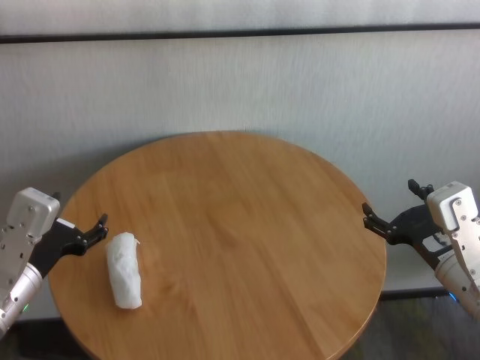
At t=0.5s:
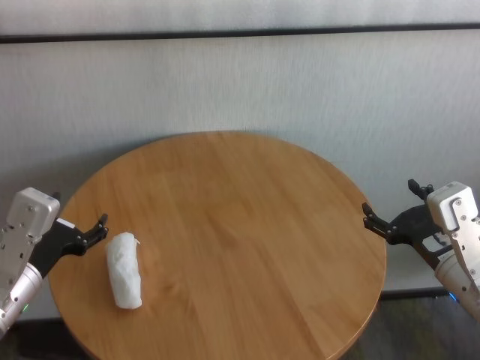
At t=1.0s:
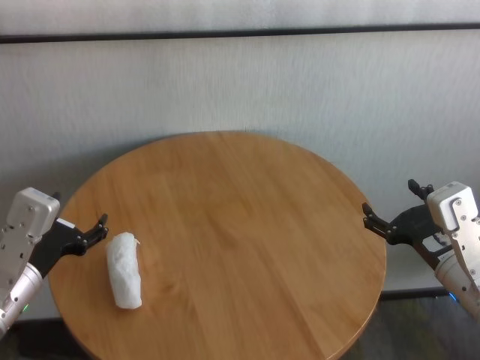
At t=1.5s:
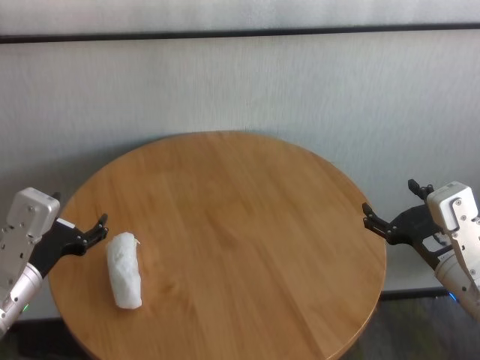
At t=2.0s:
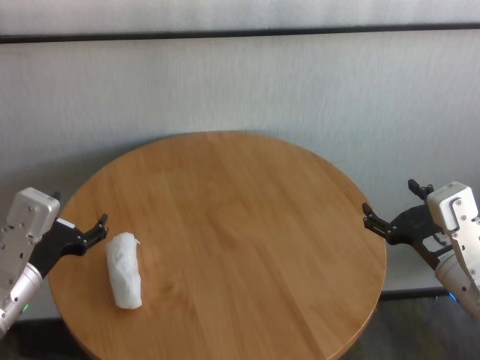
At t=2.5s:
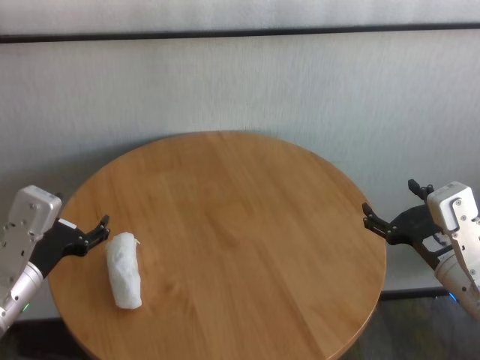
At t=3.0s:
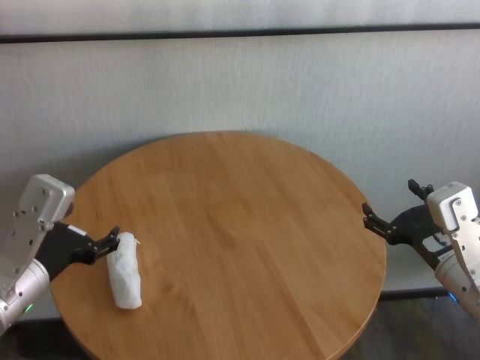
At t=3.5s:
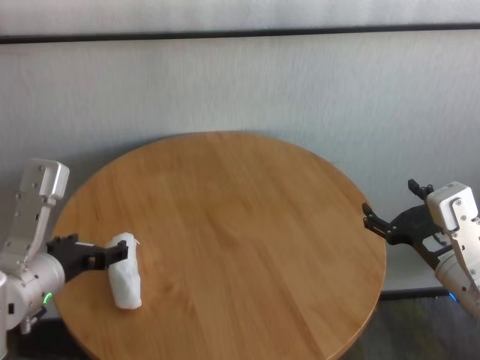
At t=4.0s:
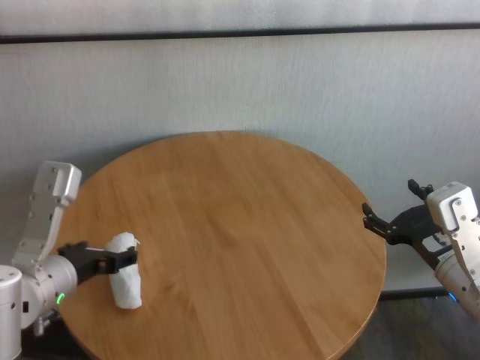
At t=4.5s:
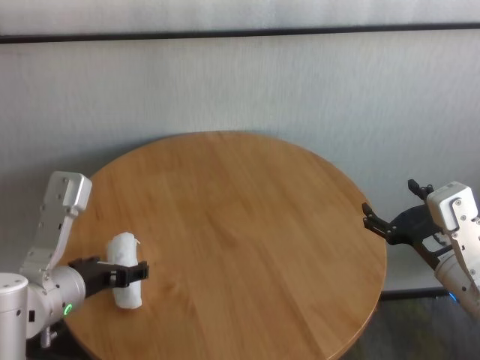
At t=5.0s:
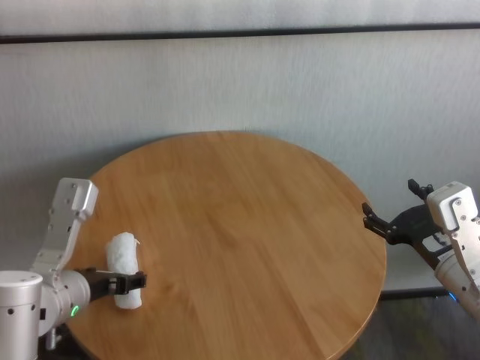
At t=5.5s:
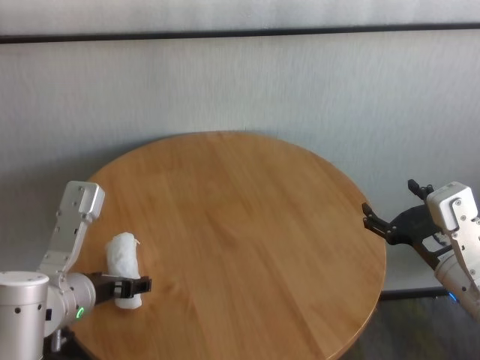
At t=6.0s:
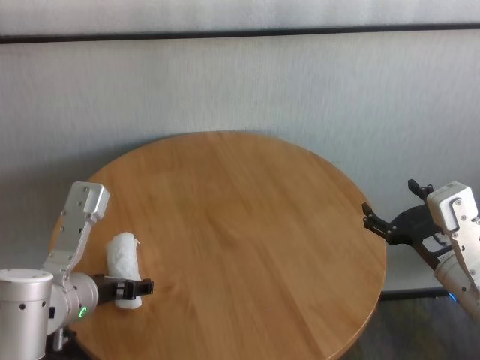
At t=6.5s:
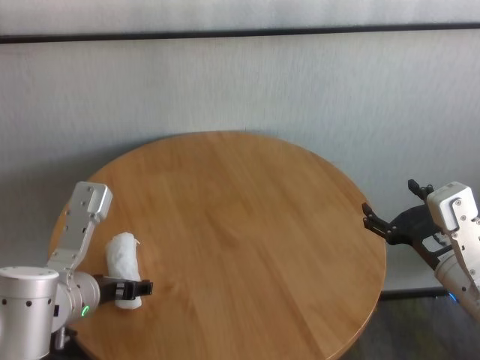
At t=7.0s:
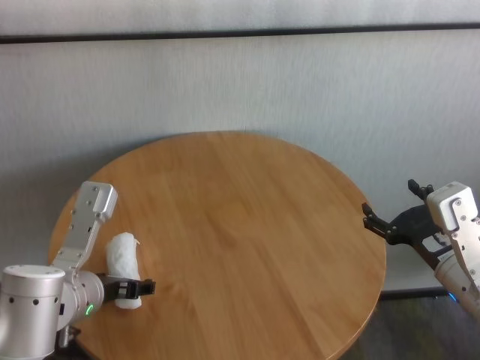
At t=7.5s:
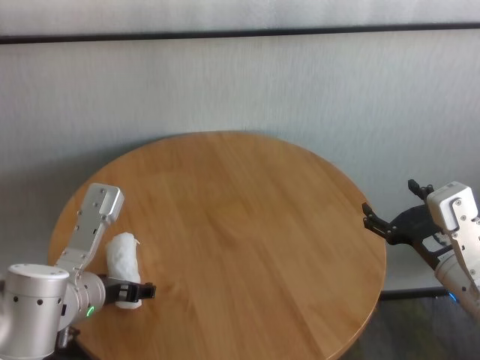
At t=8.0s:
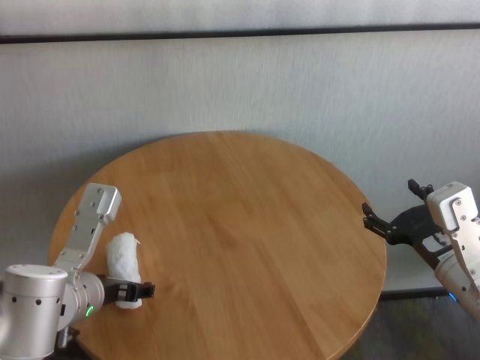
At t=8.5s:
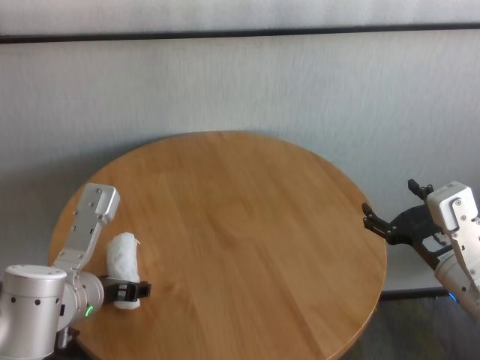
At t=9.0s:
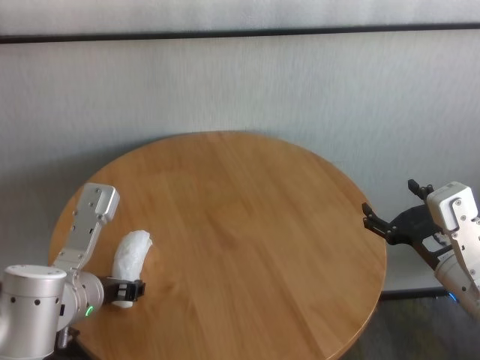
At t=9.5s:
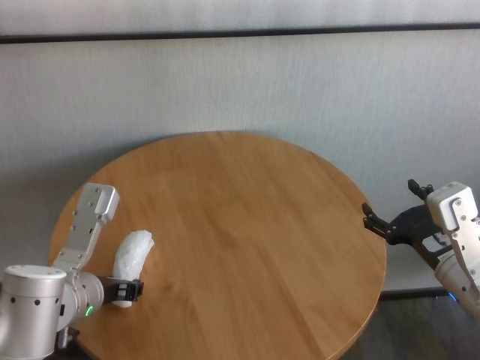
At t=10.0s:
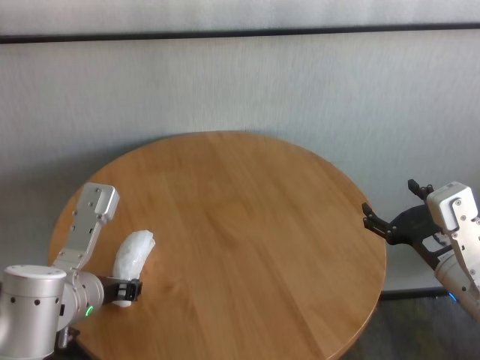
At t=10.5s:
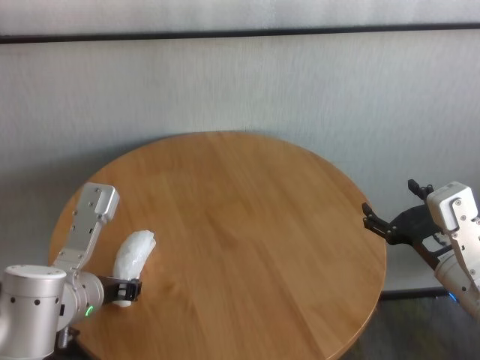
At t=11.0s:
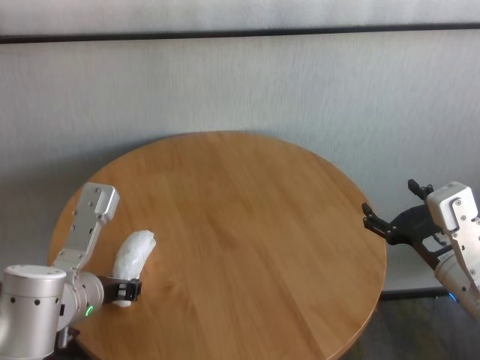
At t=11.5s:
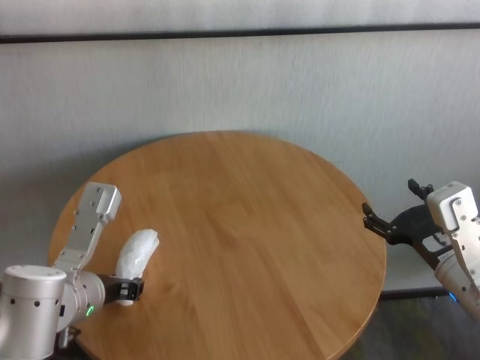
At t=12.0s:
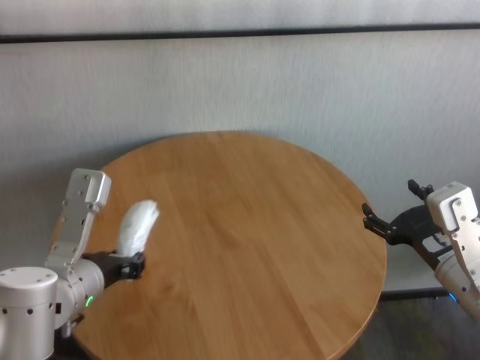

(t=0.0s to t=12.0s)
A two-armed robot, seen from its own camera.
Task of the whole recording: One hand took the sandbag from the other hand and placed it on the table.
Step, t=0.0s - t=11.0s: Grasp the paper ball with left gripper.

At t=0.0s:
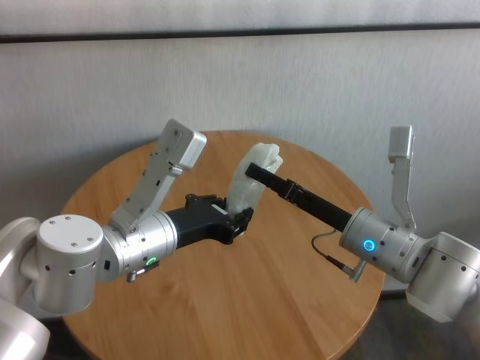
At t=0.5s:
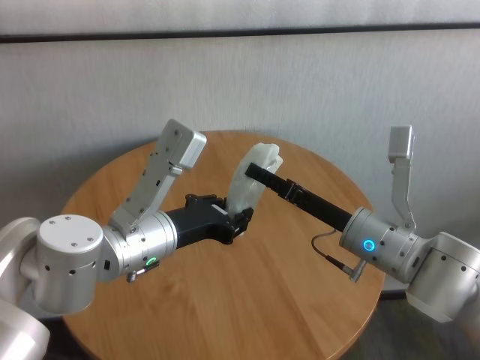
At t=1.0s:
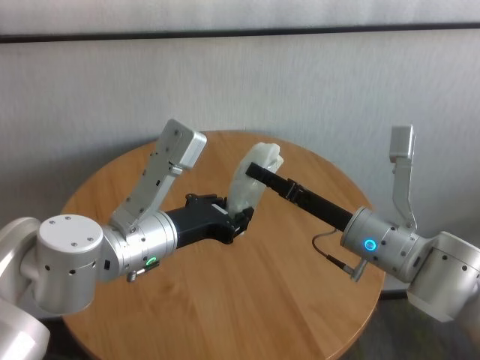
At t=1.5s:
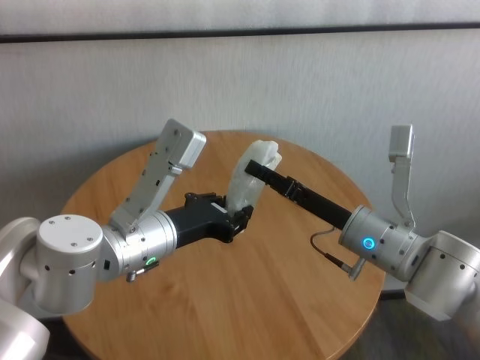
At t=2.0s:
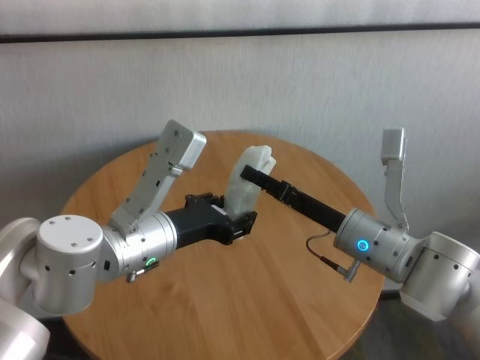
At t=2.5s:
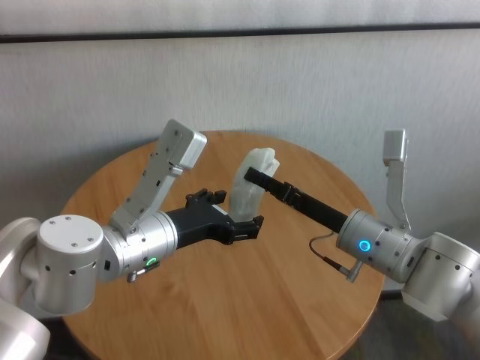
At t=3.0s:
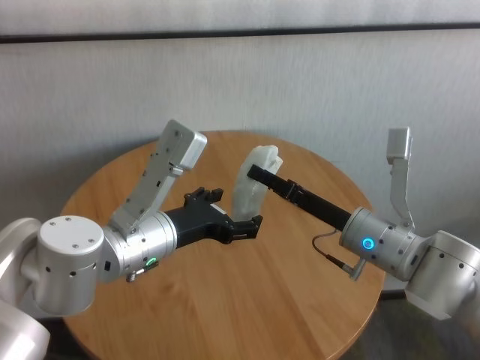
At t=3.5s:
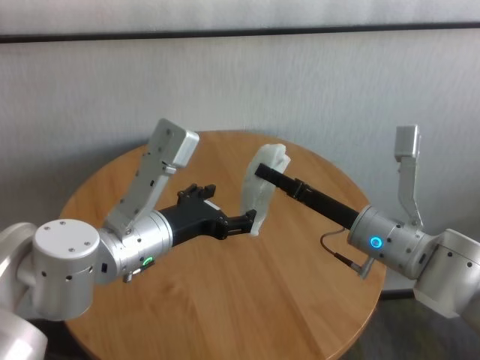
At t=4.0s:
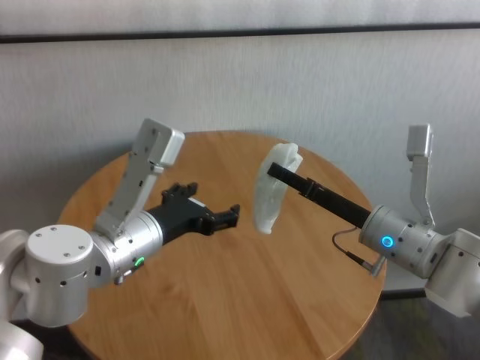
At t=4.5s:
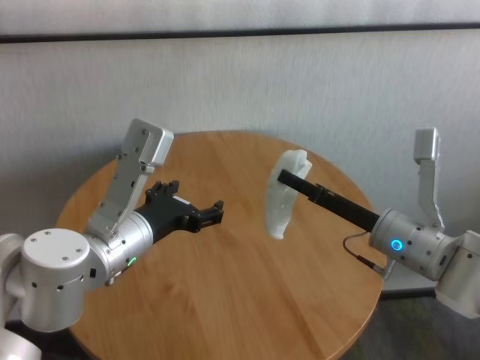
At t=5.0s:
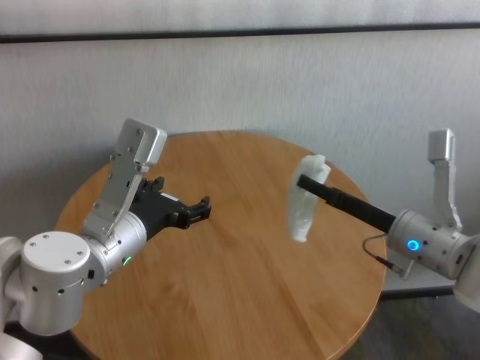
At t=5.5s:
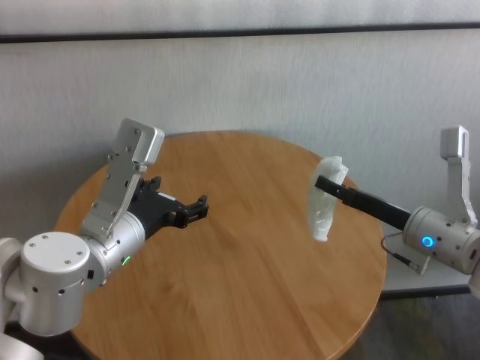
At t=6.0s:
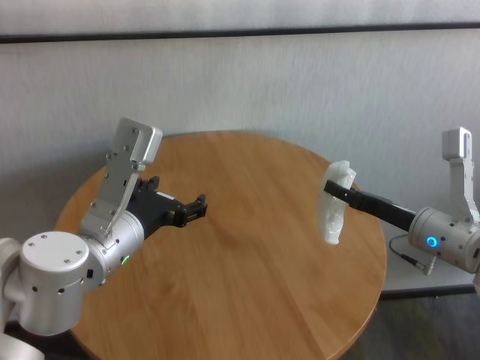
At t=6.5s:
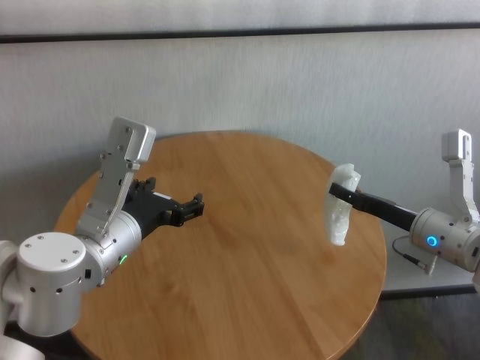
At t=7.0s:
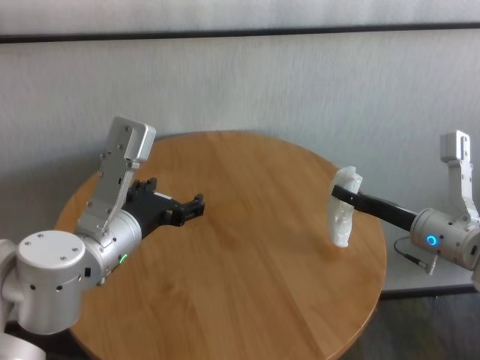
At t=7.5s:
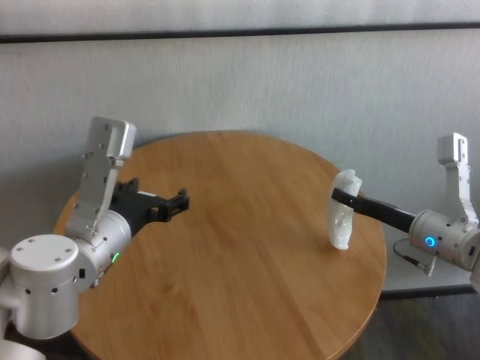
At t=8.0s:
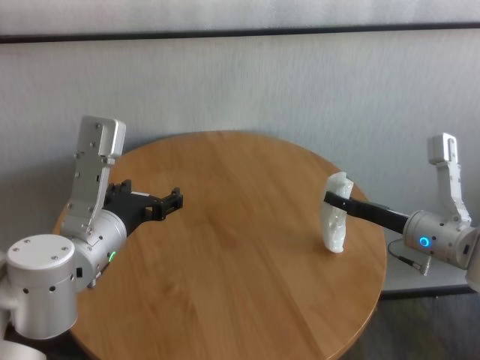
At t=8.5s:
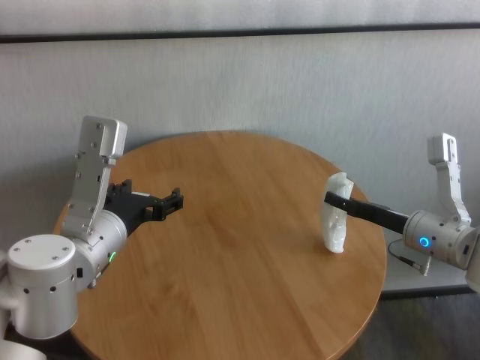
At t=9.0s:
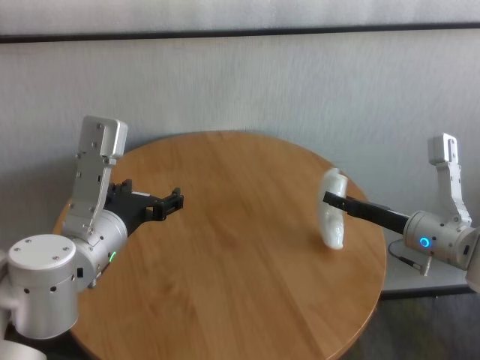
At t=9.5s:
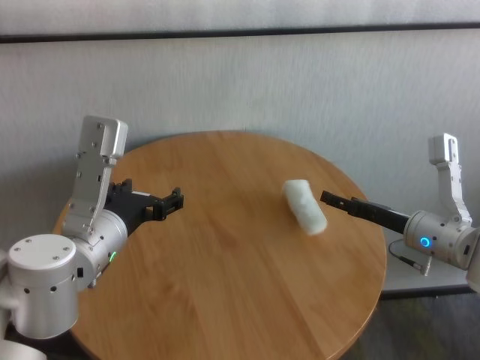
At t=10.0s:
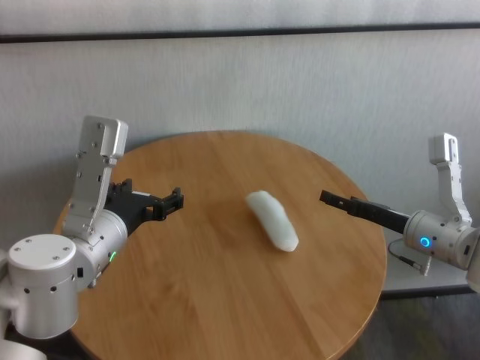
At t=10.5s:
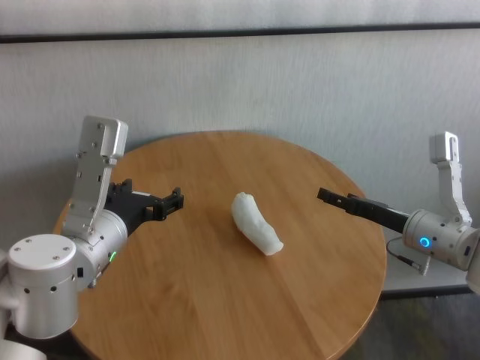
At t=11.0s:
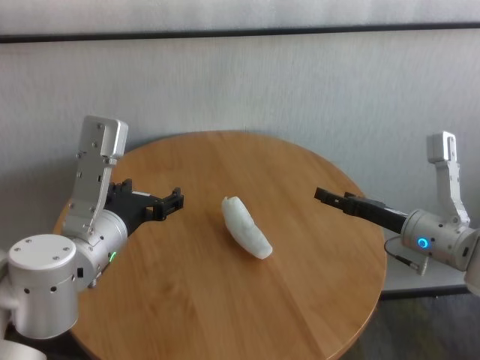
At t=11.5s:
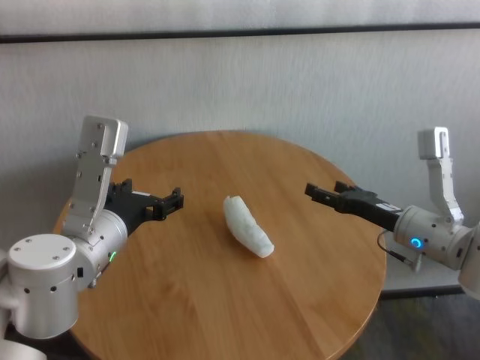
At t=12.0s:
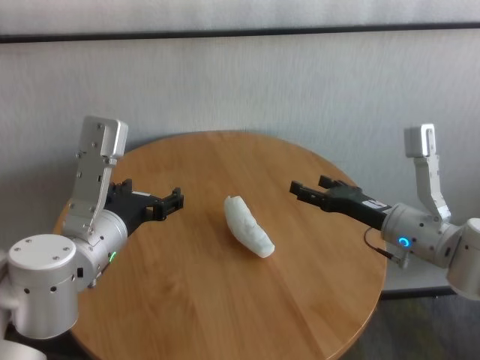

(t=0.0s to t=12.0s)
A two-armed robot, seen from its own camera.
Task of the whole recording: One hand took the sandbag from the other hand and placed it on the table.
Step, t=0.0s - t=3.5s: Pass the paper ball to the right gripper.
Step, t=4.0s - t=10.0s: Place the paper ball on the table with right gripper.

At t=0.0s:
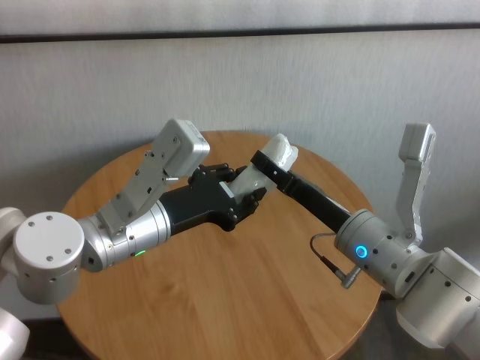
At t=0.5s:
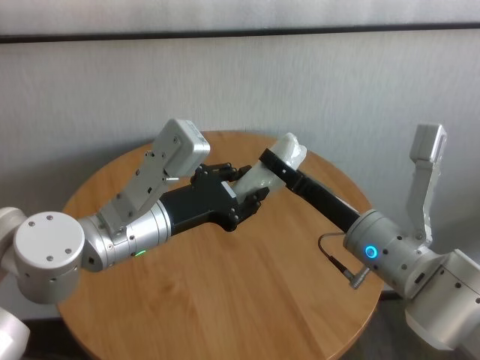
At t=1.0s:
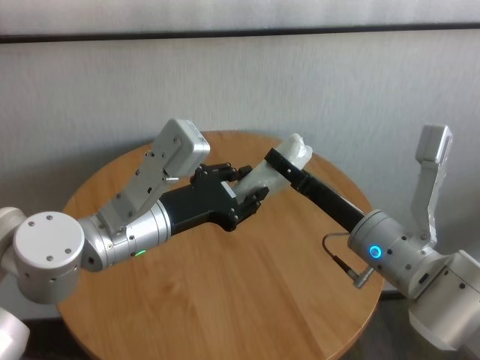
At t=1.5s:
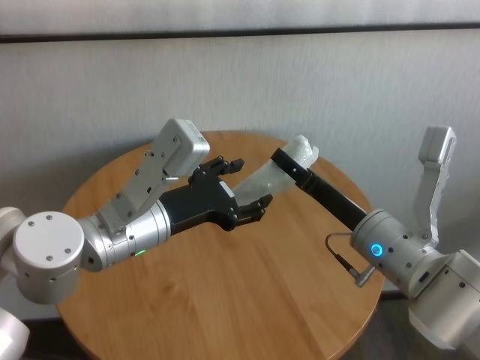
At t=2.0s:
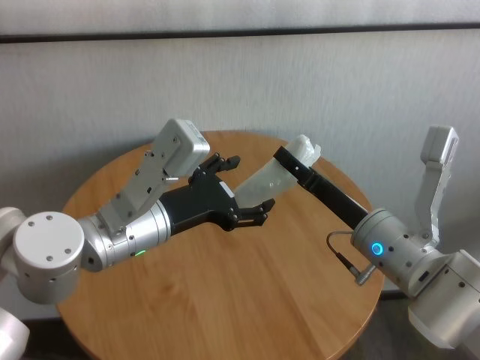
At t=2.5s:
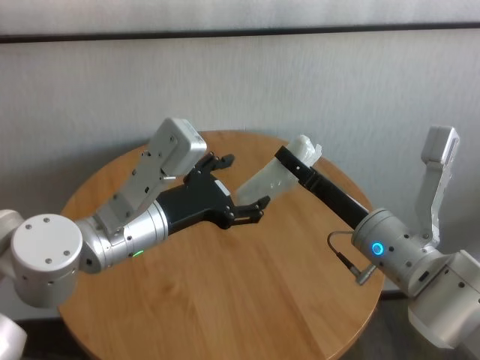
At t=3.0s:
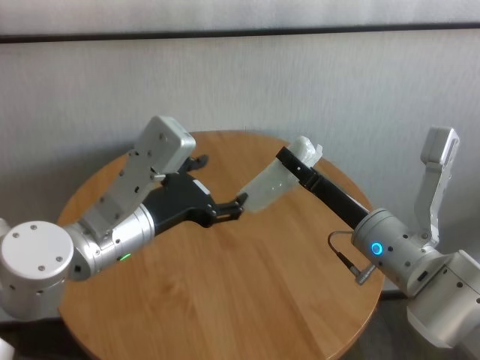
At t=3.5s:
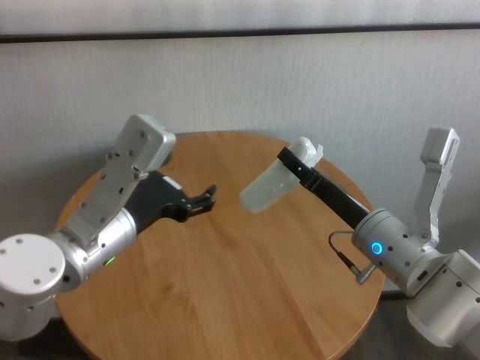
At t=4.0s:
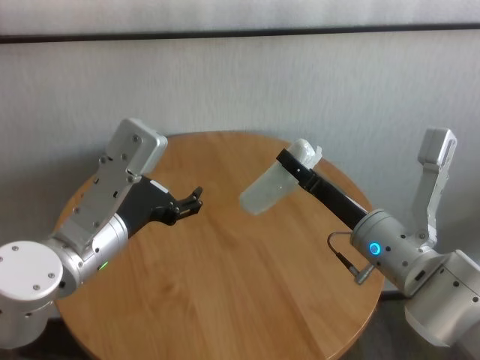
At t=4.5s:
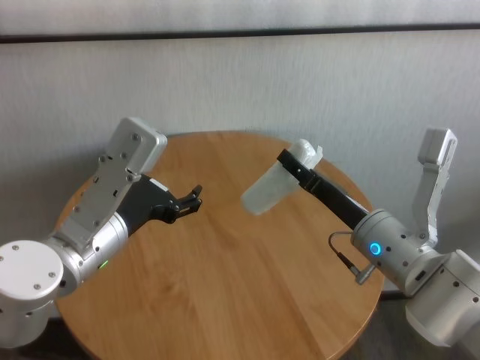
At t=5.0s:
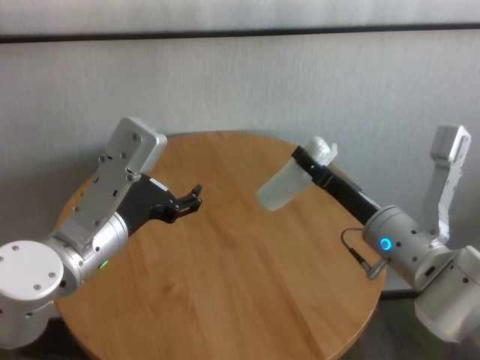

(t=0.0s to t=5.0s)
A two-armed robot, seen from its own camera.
Task of the whole recording: One hand took the sandbag from the other hand and placed it on the table.
Step, t=0.0s - t=2.0s: Pass the paper ball to the right gripper.
